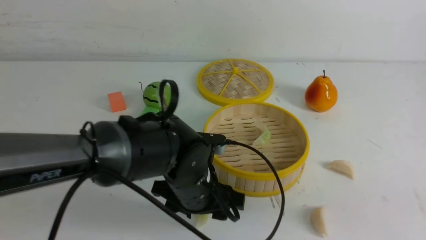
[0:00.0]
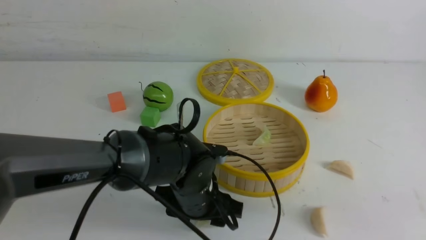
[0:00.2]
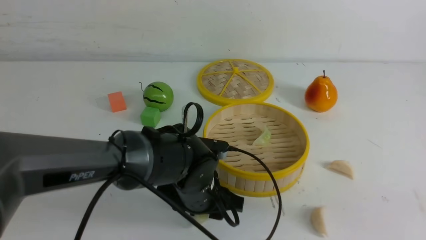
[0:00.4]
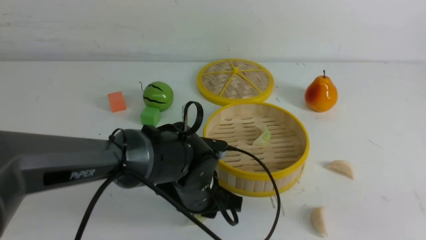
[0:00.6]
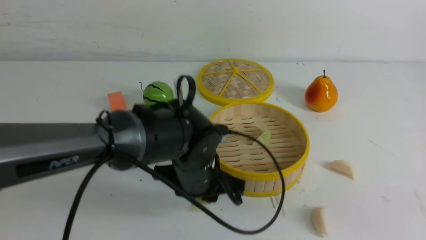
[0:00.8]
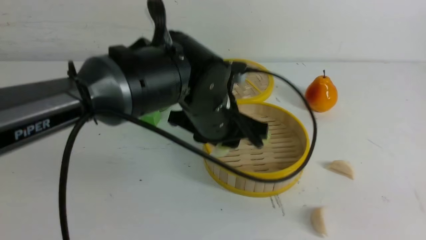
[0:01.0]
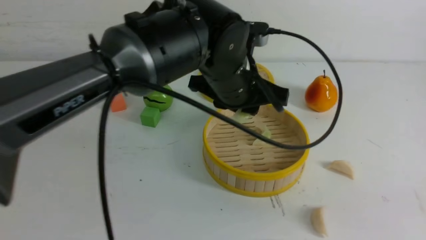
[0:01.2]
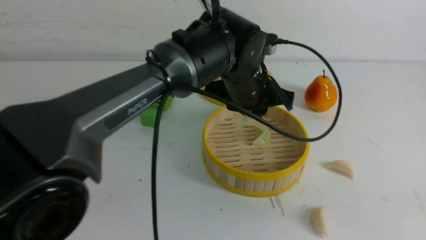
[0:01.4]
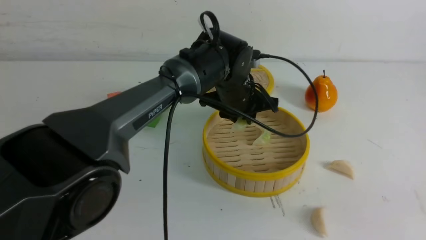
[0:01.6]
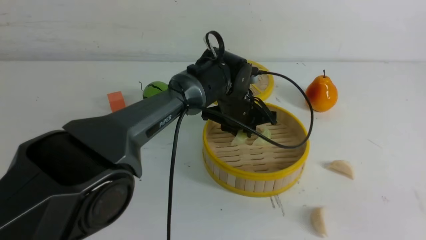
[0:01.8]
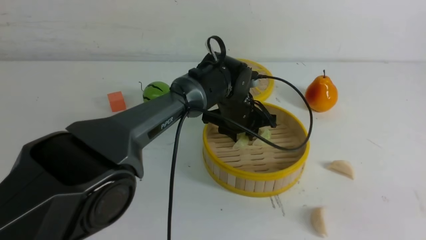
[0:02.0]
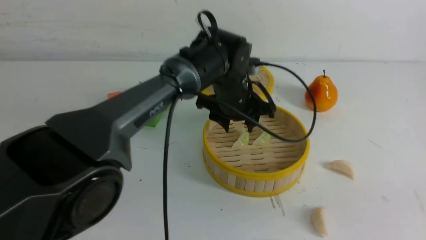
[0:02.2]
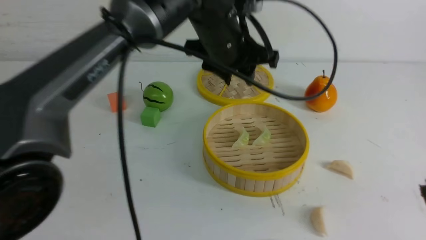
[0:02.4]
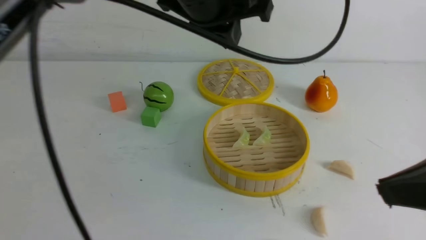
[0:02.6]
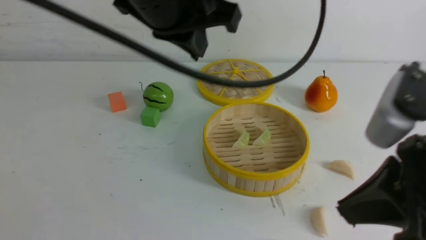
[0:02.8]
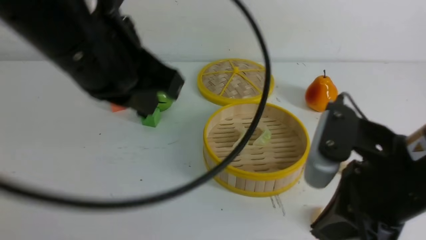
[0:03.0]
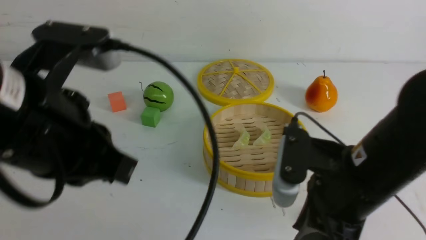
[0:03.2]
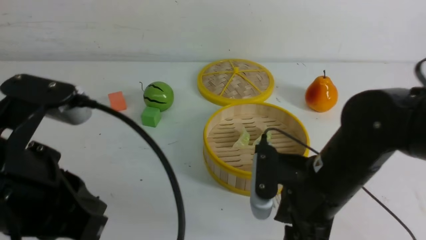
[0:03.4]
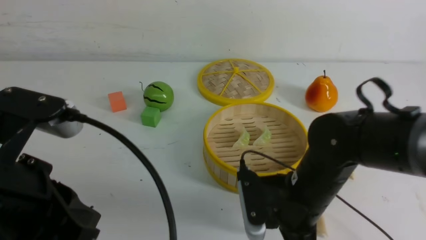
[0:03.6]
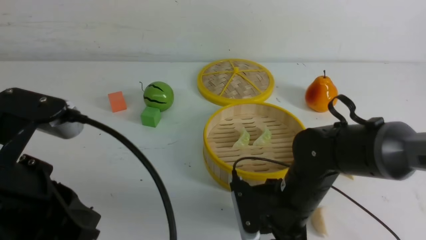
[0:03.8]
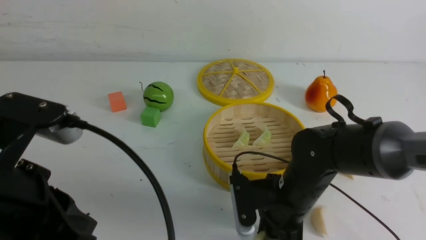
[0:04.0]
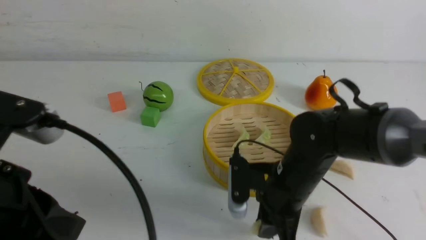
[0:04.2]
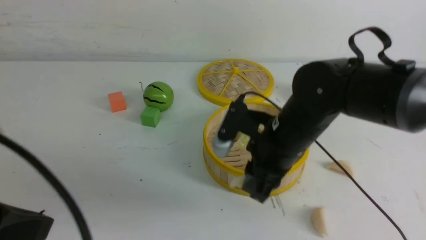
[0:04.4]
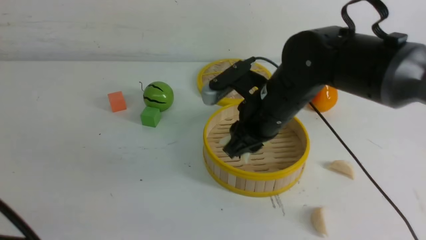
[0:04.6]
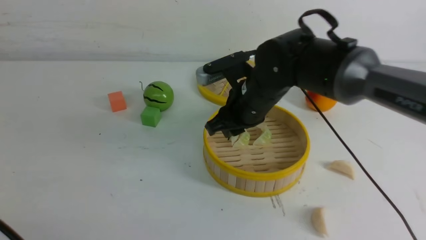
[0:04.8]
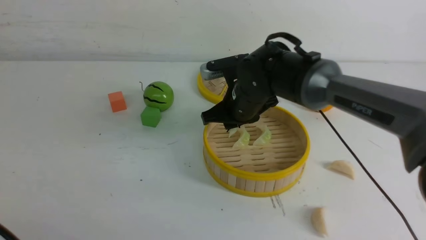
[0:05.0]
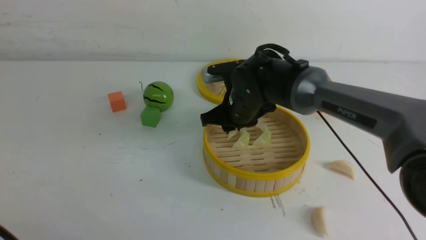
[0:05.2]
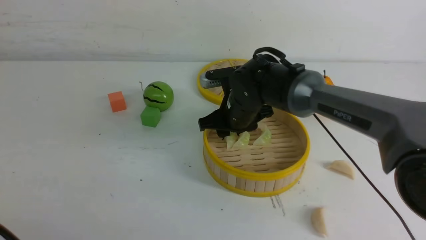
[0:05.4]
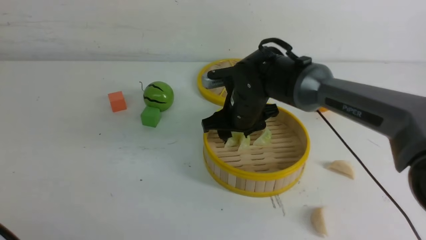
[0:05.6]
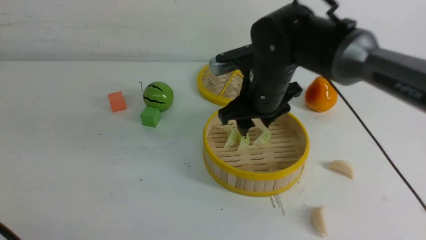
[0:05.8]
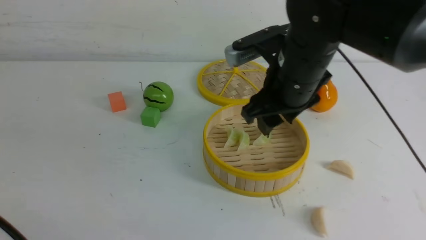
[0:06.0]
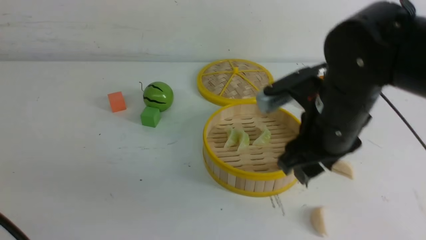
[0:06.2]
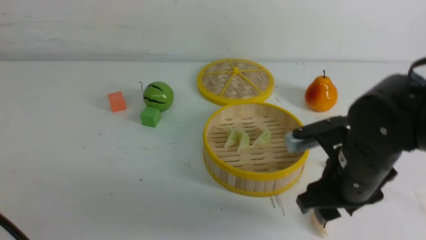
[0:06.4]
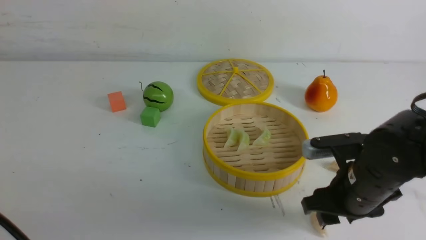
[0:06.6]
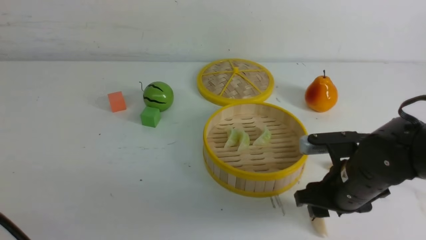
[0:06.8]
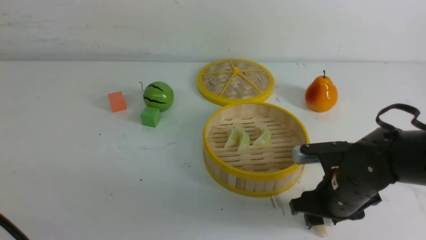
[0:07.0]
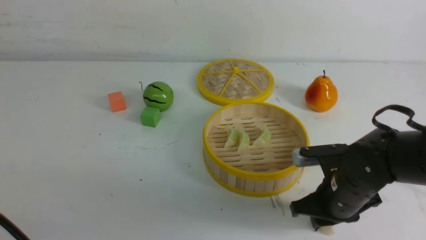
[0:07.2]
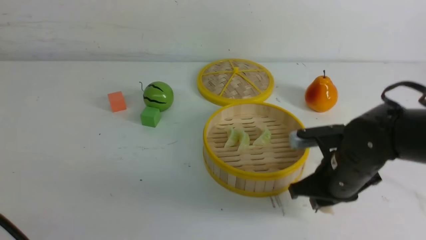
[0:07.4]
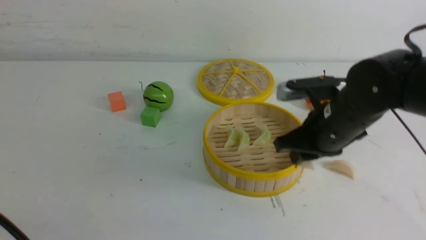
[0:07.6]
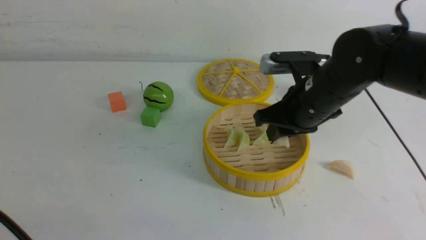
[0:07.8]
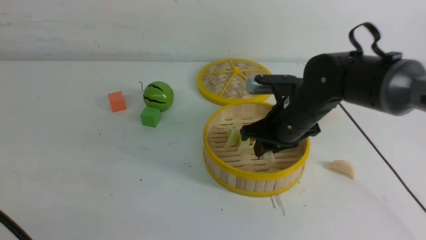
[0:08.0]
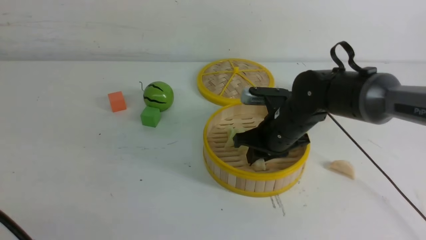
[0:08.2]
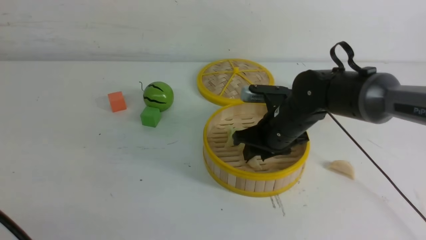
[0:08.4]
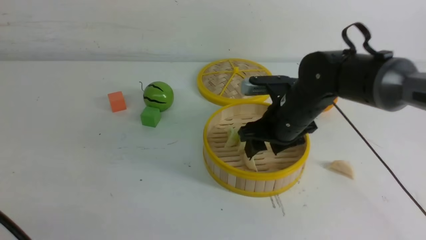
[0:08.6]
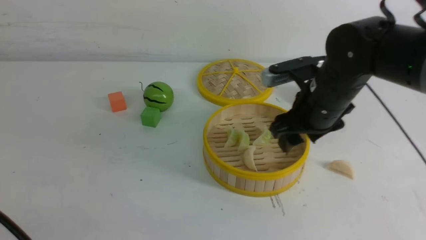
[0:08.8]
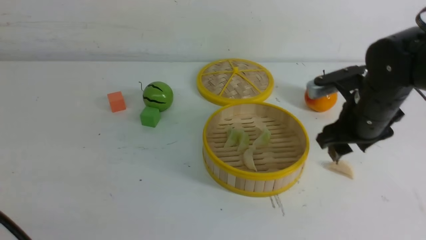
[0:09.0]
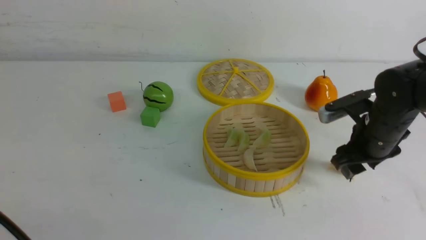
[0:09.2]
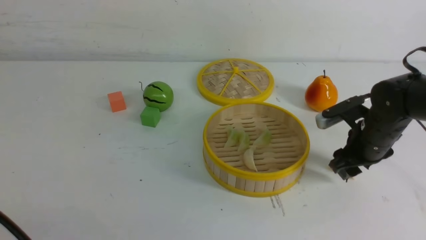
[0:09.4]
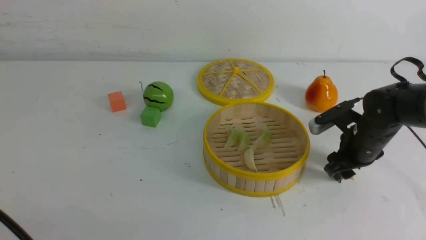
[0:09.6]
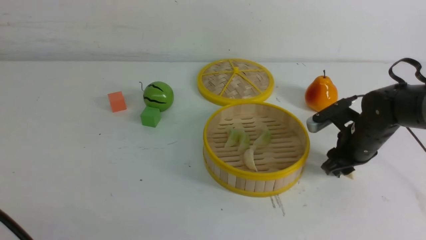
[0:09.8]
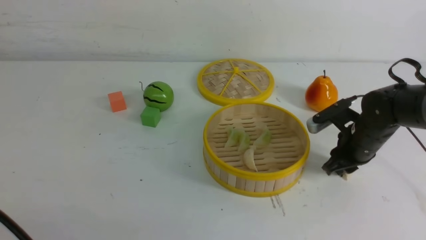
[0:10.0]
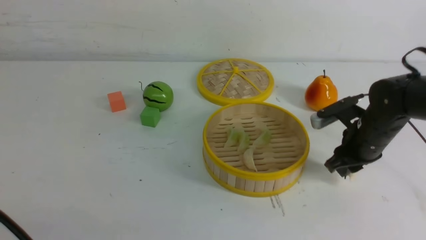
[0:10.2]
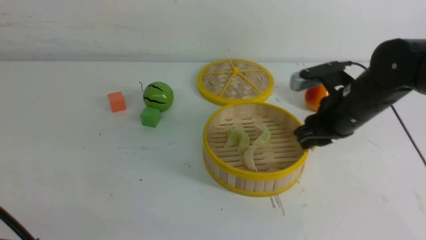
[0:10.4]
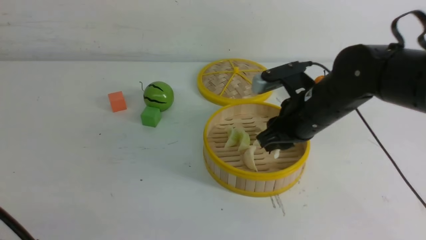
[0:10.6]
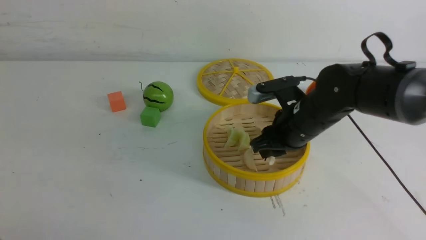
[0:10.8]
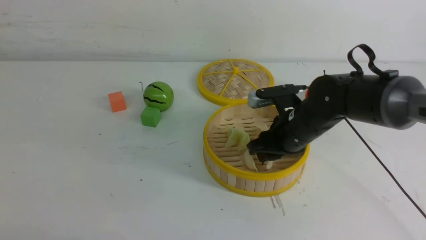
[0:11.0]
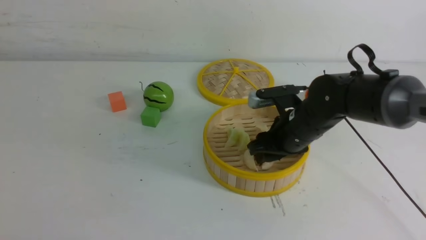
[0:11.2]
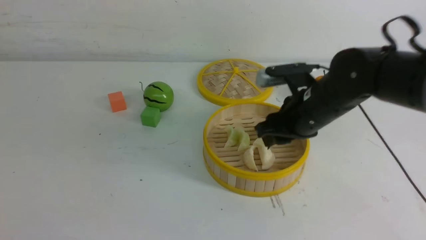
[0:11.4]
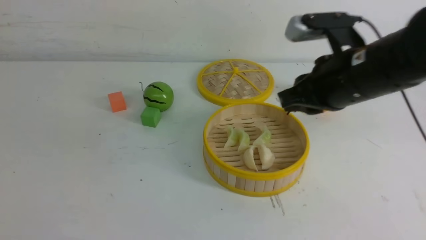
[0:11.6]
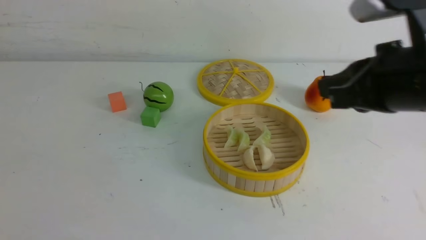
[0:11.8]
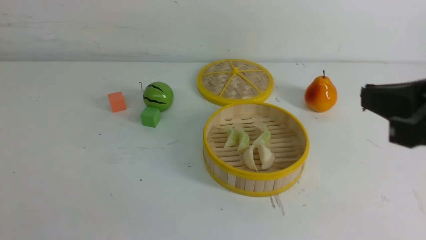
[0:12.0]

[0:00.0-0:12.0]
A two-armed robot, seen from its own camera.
Task of the whole recording: put the dumplings into the steamer on the white table.
Step, 0:00.8 to 0:02.2: use the left arm to put the dumpling into the steamer.
Step, 0:02.4 to 0:04.2: use the right arm to grab a dumpling.
Step, 0:04.4 to 0:05.6: use the right arm to put the dumpling into the steamer.
Step, 0:05.8 to 0:07.4: use the right arm to grab a dumpling.
Step, 0:07.6 to 0:08.6: use the right arm to put the dumpling into the steamer.
Step, 0:08.8 to 0:10.2: use the right arm to grab a dumpling.
Step, 0:10.4 to 0:11.6: use the right arm to put the dumpling into the steamer.
0:00.0 to 0:01.6: The left gripper heads forward and to the right, covering some 15 cm, and closes.
0:01.6 to 0:03.0: The right gripper travels forward, to the left and downward by some 15 cm. The left gripper moves backward, upward and to the left, roughly 30 cm, and closes up.
0:03.0 to 0:04.4: The right gripper moves forward, downward and to the left, about 15 cm, and opens, then closes once more. The left gripper shifts about 15 cm backward, to the left and downward.
0:04.4 to 0:06.0: The right gripper is displaced upward by some 5 cm, reaches roughly 10 cm forward, then returns, and opens.
0:06.0 to 0:07.6: The right gripper is displaced downward and to the right by some 10 cm, and closes.
0:07.6 to 0:09.0: The right gripper goes some 5 cm to the right, and opens.
0:09.0 to 0:10.4: The right gripper moves some 10 cm downward and comes back, and closes.
0:10.4 to 0:12.0: The right gripper is displaced backward and upward by about 25 cm, and closes its fingers. The left gripper is displaced backward and to the left by some 10 cm.

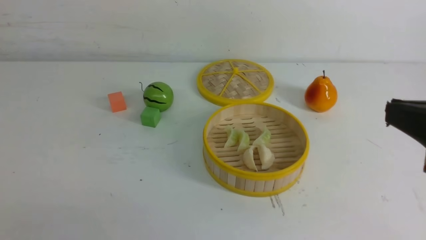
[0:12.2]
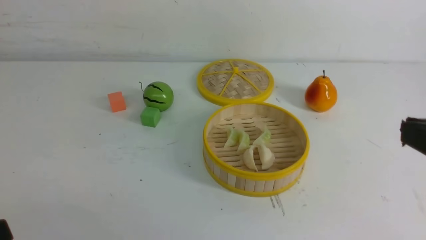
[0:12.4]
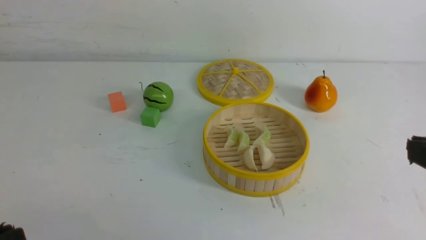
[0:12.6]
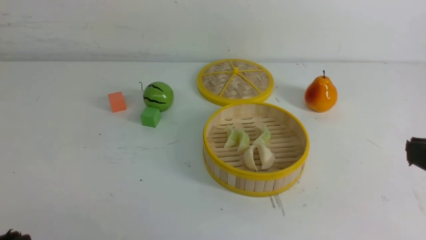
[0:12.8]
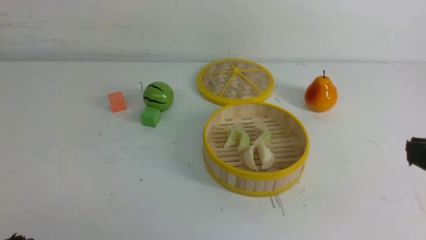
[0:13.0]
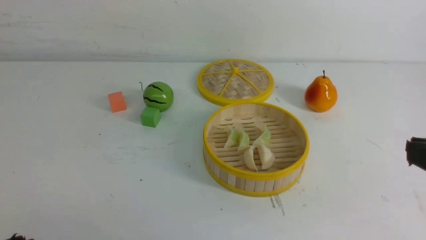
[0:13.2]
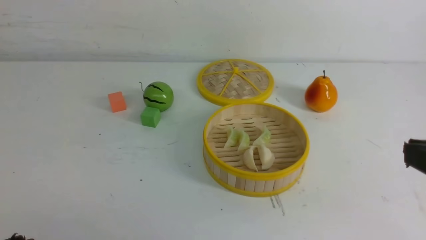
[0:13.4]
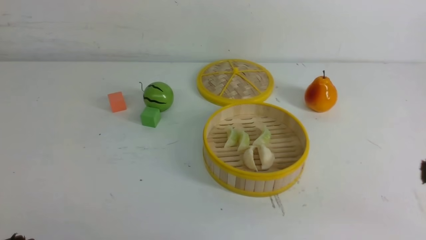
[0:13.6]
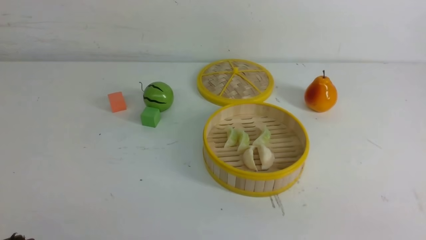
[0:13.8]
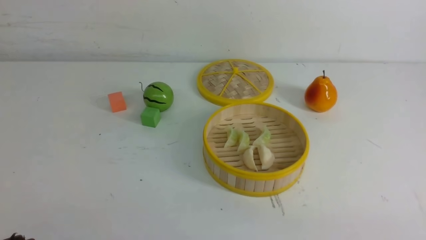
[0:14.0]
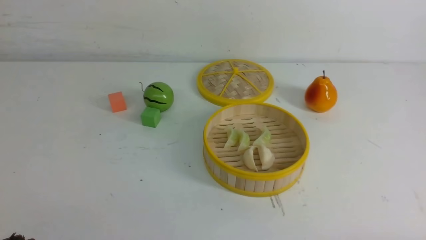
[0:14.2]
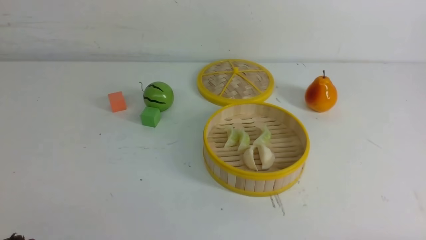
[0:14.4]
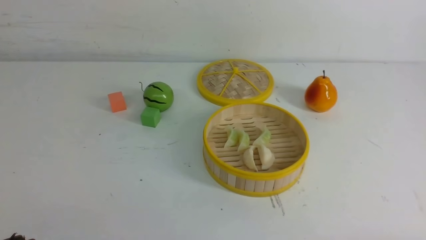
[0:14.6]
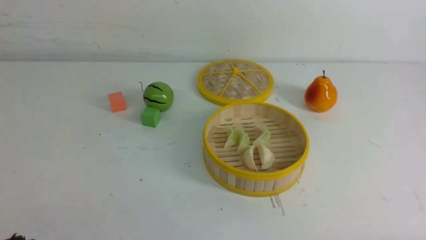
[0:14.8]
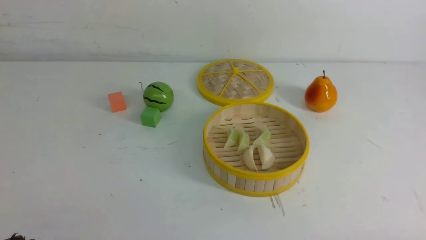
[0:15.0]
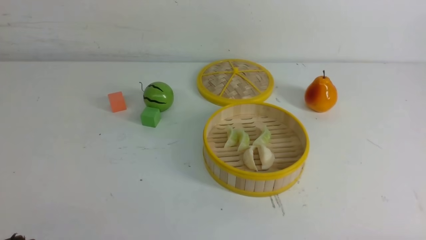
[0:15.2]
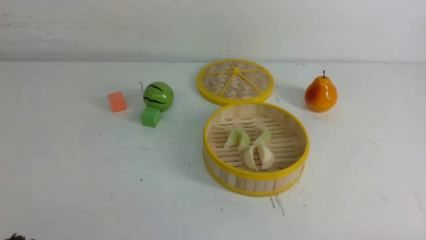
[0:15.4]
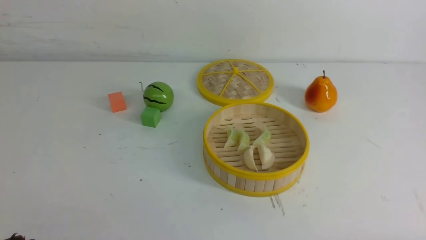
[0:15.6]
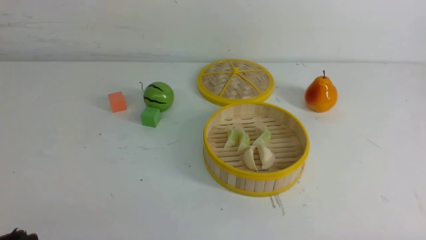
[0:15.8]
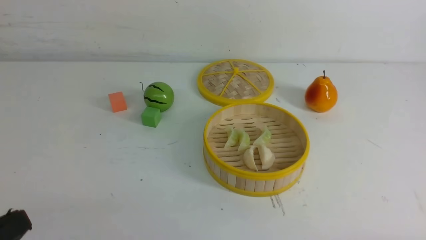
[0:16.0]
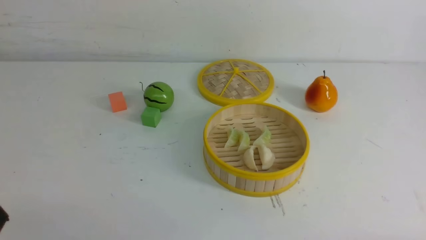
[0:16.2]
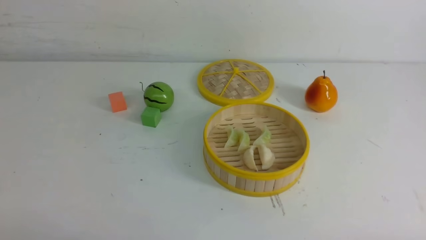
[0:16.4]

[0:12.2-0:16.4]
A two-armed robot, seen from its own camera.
Task of the whole recording: put the dumplings into the steamer on the white table.
0:12.2 to 0:13.6: The right gripper moves downward, about 5 cm.
